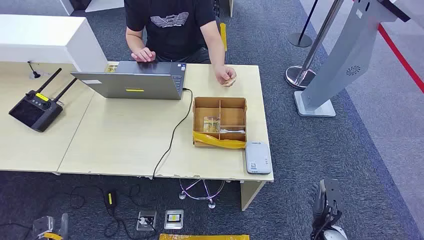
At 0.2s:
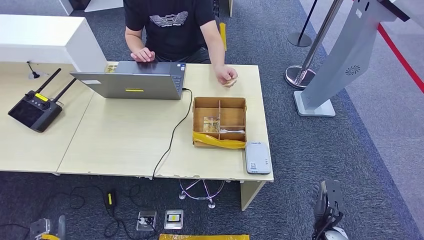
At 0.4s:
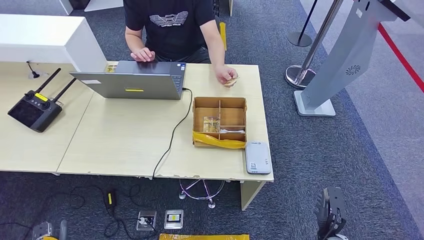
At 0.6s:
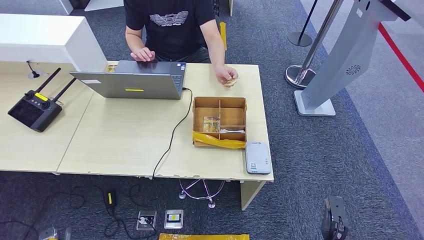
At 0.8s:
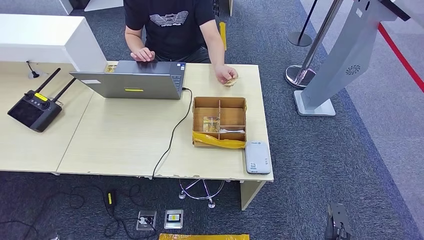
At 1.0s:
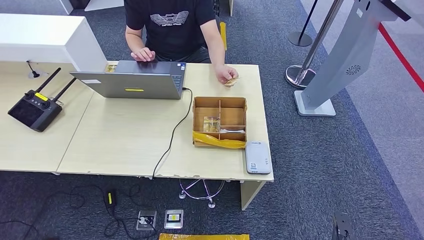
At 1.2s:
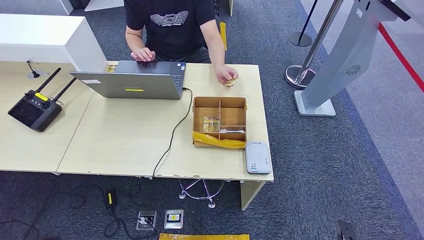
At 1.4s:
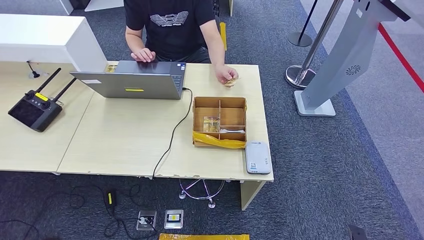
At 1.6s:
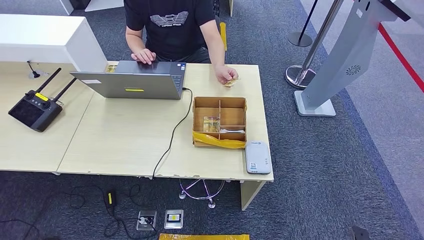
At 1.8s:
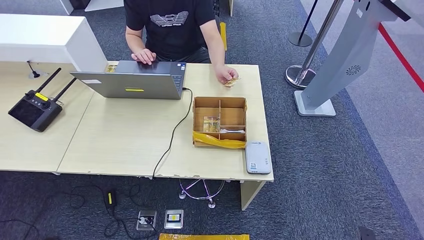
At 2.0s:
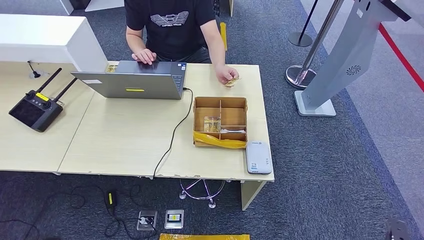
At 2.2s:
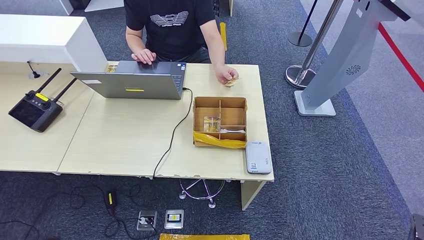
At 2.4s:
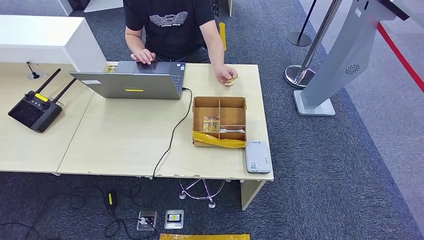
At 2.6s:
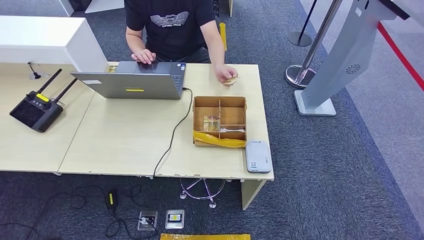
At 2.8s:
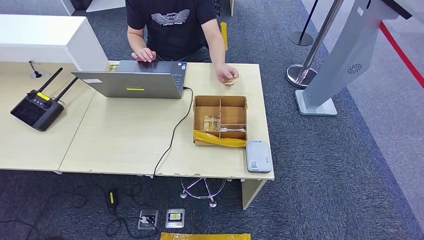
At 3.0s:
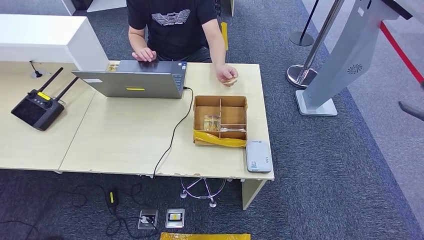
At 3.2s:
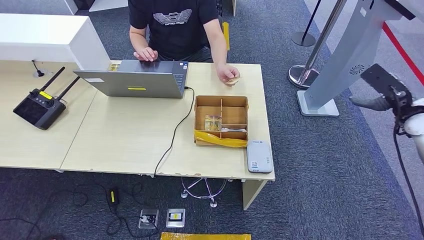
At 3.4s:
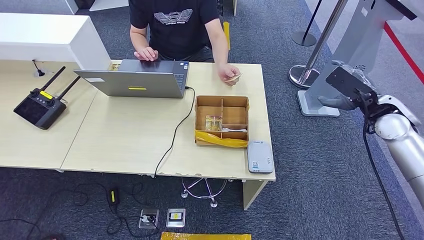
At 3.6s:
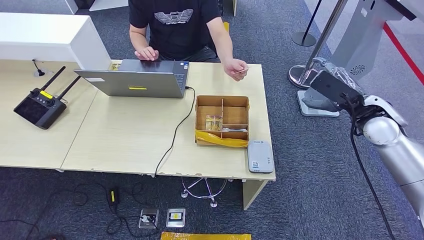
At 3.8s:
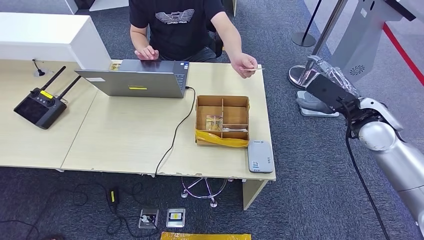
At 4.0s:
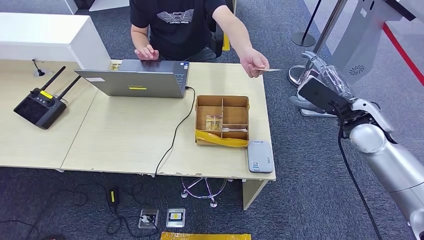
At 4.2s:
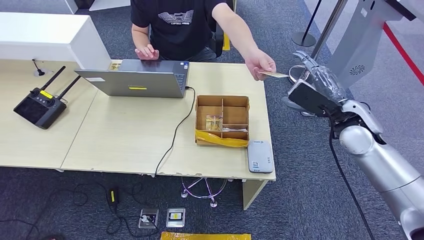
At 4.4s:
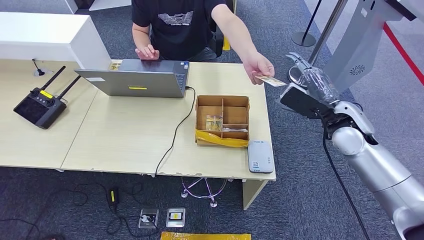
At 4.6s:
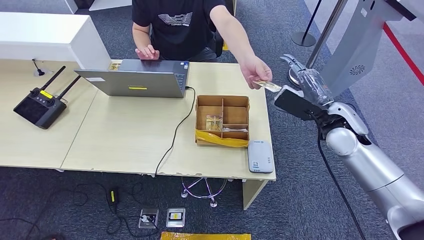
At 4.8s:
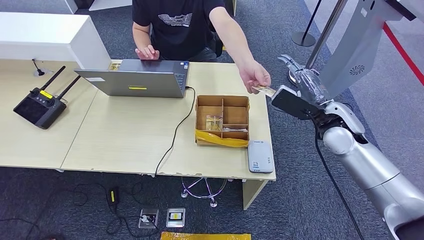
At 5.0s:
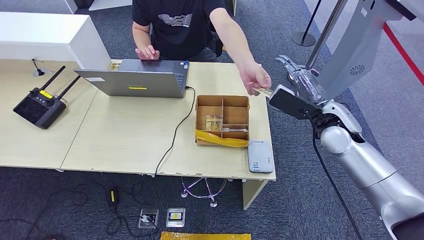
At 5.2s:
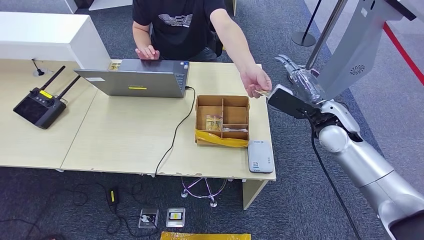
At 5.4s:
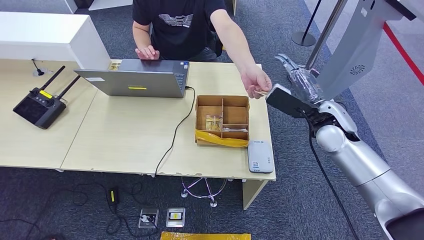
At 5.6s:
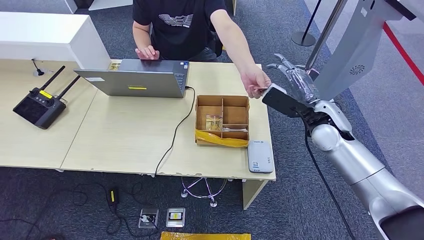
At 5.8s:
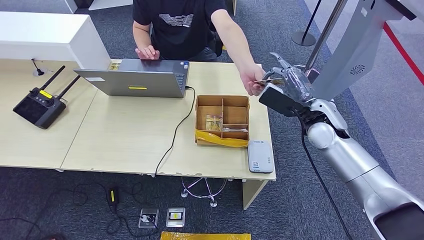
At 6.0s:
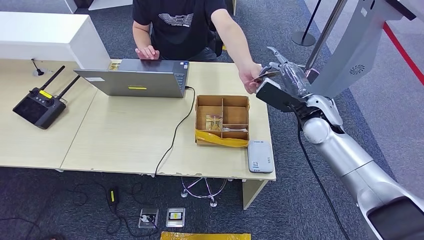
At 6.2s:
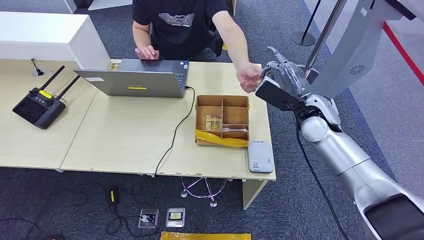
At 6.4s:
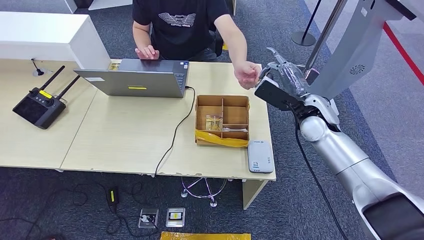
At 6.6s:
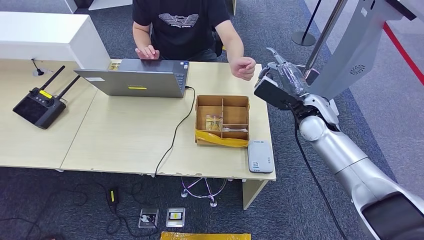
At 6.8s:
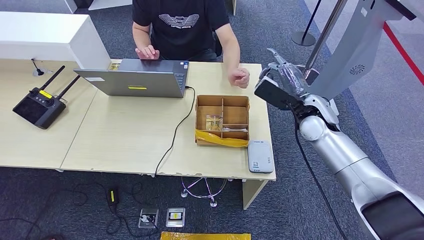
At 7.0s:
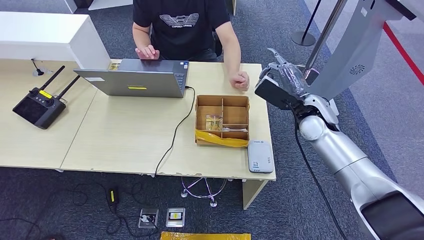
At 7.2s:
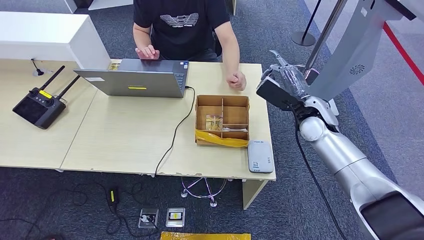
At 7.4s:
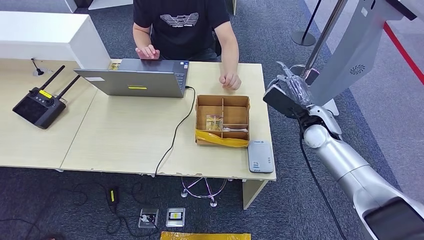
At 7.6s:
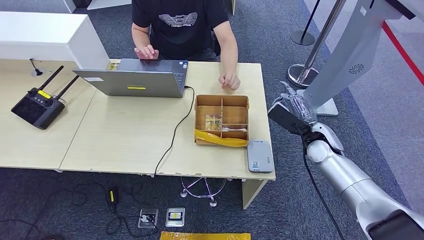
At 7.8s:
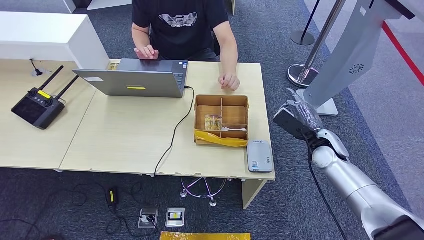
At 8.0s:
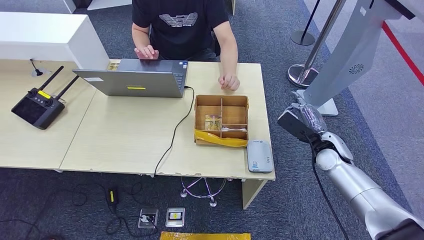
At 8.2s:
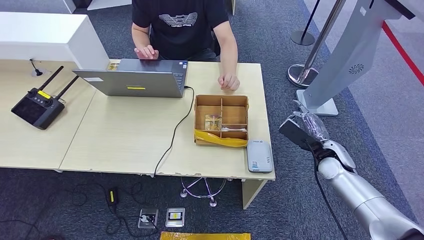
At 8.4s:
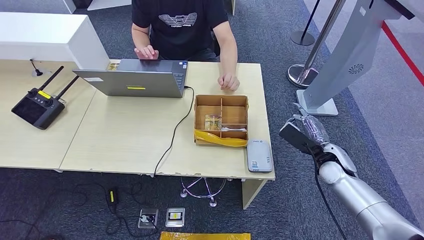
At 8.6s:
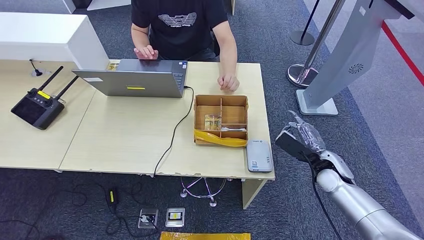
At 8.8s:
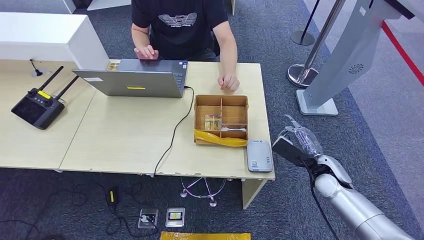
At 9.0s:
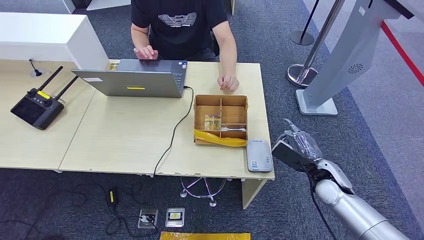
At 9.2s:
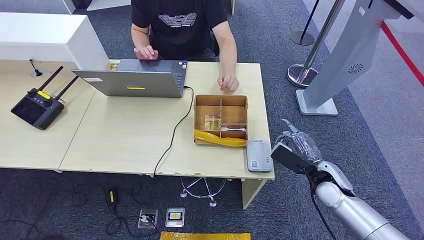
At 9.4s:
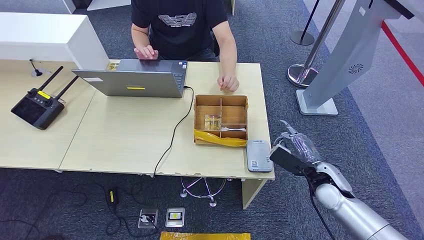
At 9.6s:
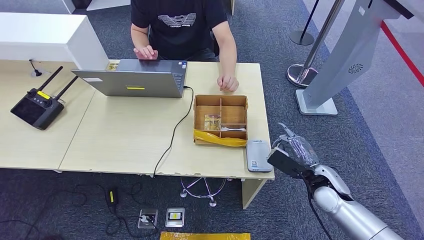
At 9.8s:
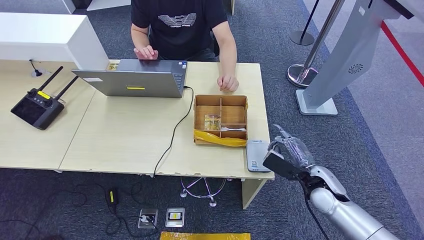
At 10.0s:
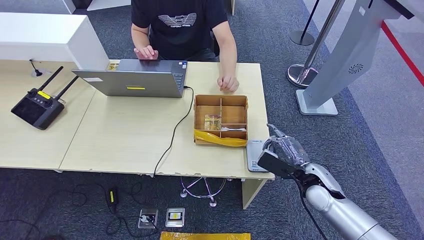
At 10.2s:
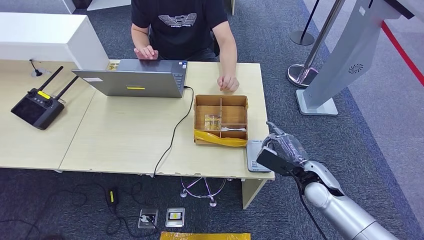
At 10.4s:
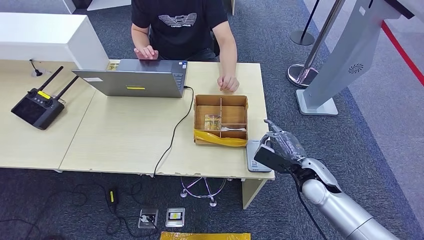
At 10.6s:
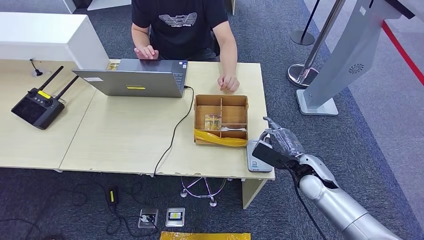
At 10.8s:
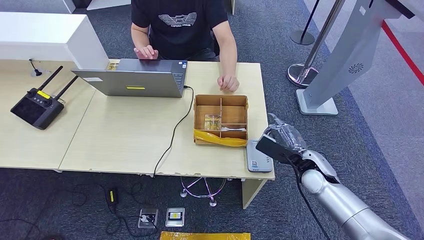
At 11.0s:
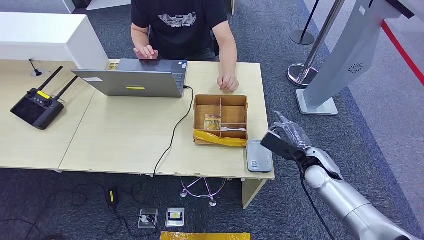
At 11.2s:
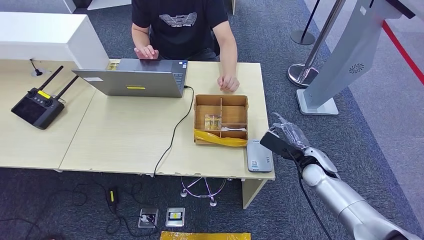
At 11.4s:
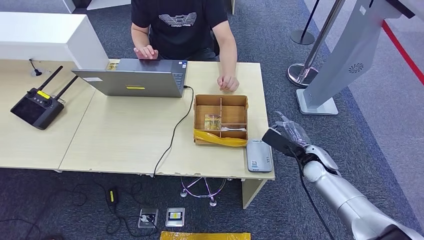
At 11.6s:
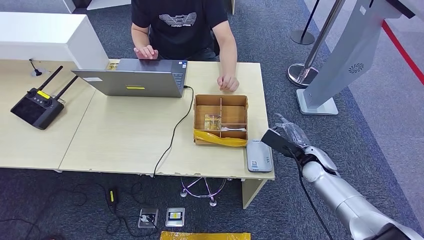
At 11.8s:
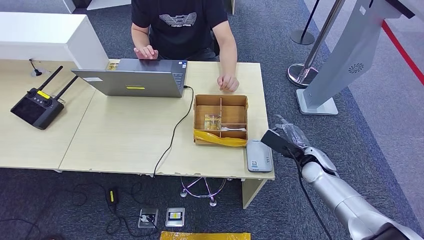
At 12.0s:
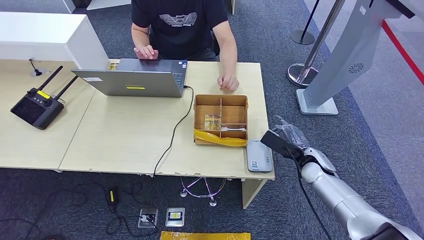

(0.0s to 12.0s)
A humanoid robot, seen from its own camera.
Step, 0.0s - 6.6s: Take the ID card from the person's hand.
Step, 6.8s - 12.0s: Place the ID card on the card reader.
1.6s - 3.0s: The right hand is displaced upward, forward and to the right by roughly 40 cm.
4.4s - 6.0s: The right hand shifts by roughly 5 cm.
6.0s - 7.6s: The right hand shifts approximately 10 cm downward.
7.6s - 9.0s: The right hand heads backward and downward, covering about 10 cm.
9.0s - 10.4s: There are only small adjustments of the hands.
10.4s - 12.0s: The right hand moves some 5 cm.

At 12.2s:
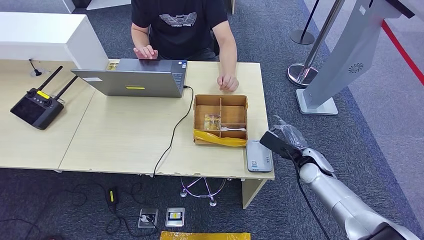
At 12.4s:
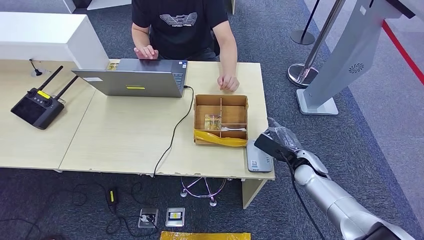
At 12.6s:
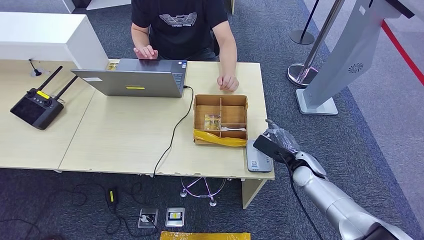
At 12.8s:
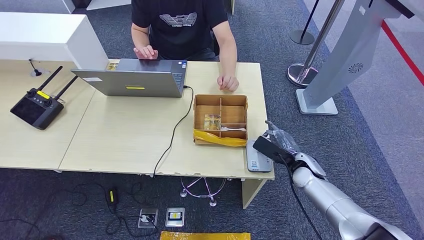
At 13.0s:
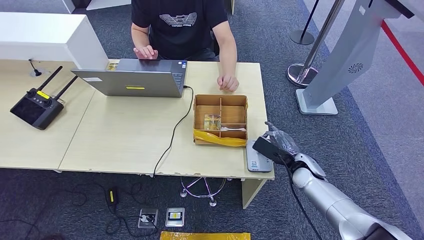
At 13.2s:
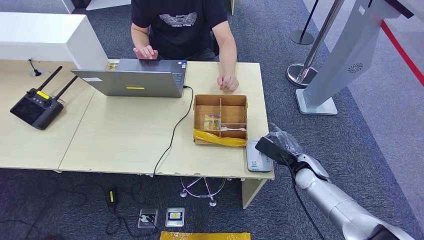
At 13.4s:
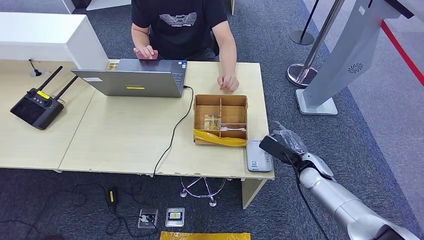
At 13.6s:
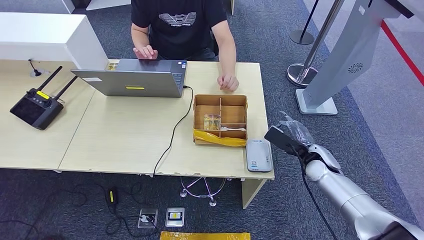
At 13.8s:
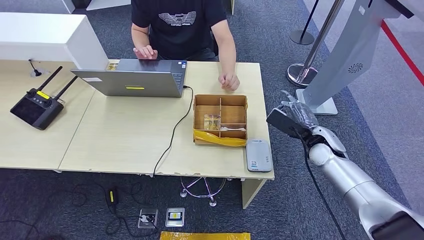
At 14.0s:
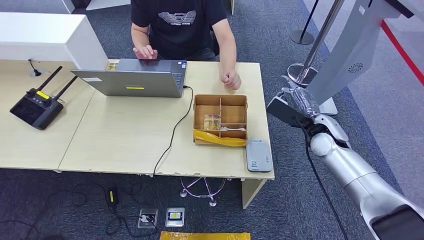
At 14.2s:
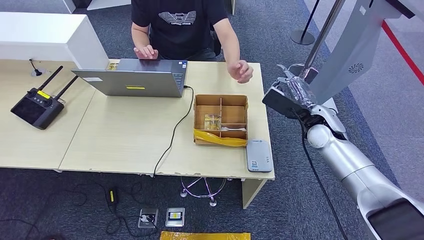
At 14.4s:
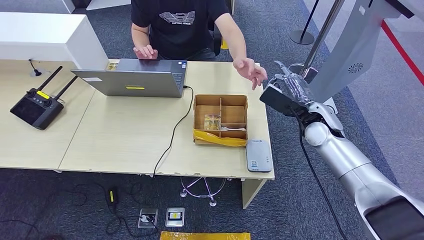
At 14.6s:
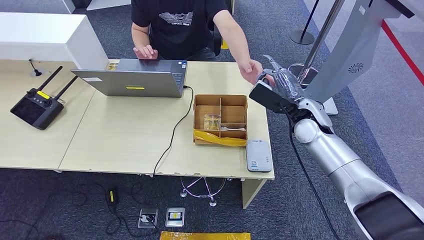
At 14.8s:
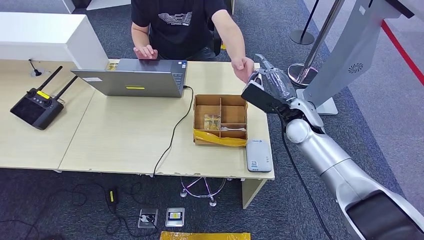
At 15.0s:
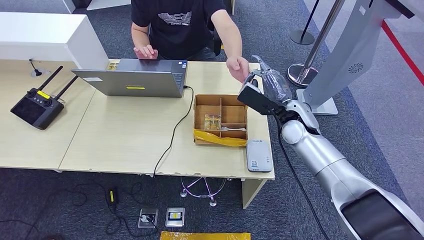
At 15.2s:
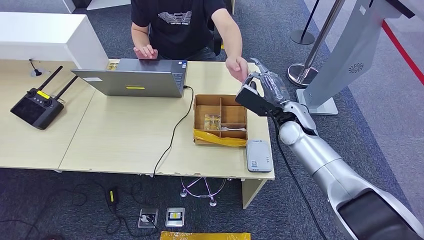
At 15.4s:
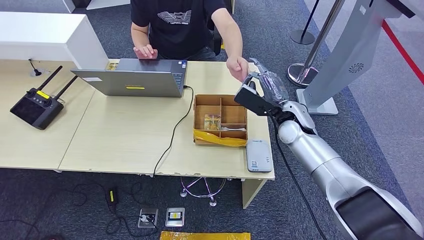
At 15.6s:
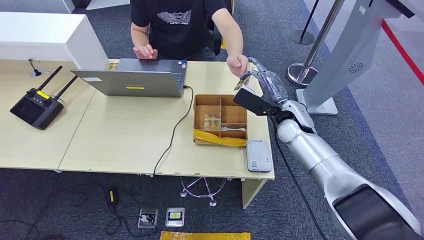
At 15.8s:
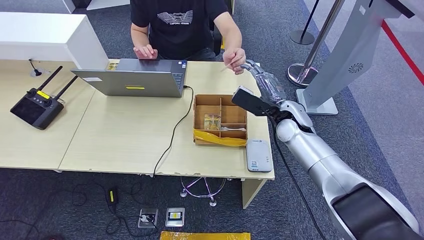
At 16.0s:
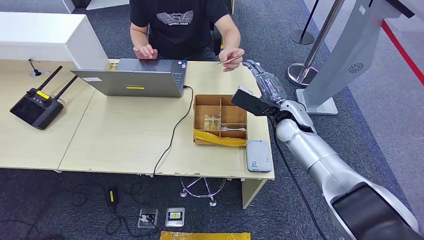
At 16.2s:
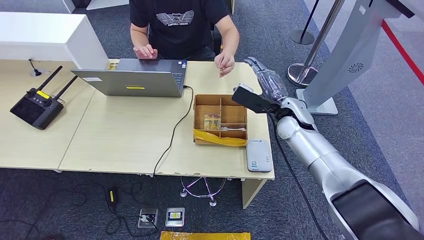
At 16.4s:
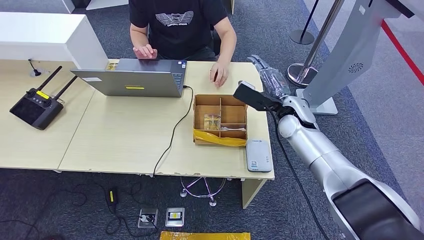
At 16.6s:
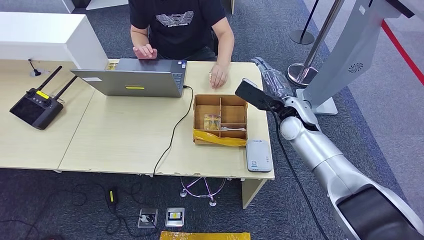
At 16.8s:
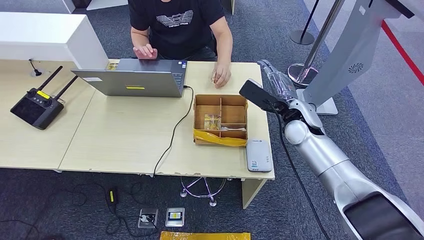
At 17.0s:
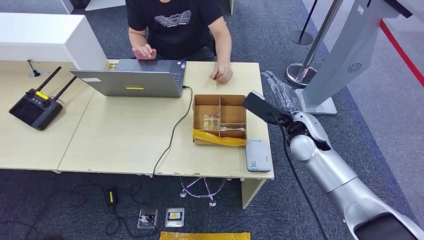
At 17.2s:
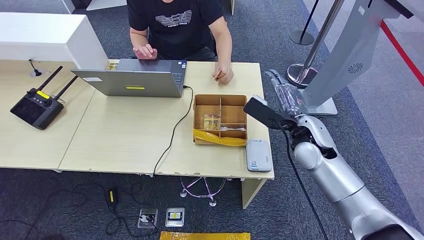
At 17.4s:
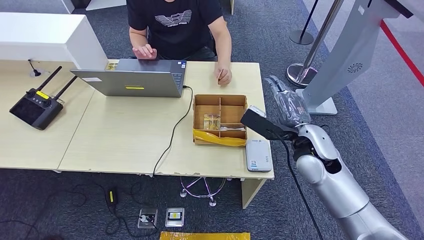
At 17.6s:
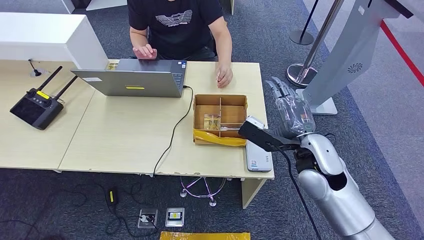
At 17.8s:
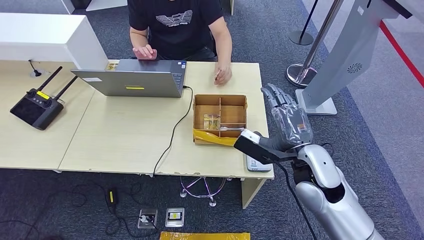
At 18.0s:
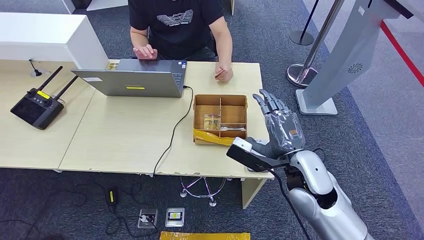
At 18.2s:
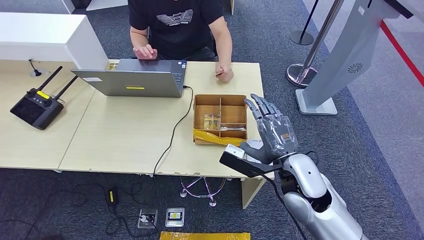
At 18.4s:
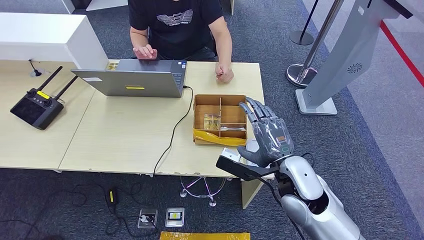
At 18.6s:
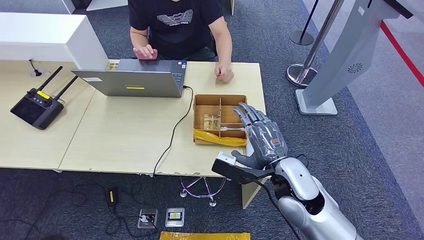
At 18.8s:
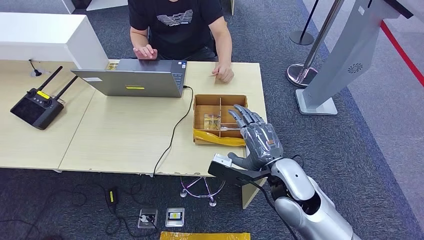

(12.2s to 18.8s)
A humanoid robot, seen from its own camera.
Step, 12.2s - 16.6s: Hand the ID card to the person.
12.2s - 13.8s: The right hand travels upward by approximately 5 cm.
13.8s - 15.4s: The right hand is displaced to the left and upward by some 10 cm.
15.4s - 17.2s: The right hand shifts about 5 cm backward.
17.2s - 18.8s: The right hand moves backward and to the left, approximately 15 cm.
